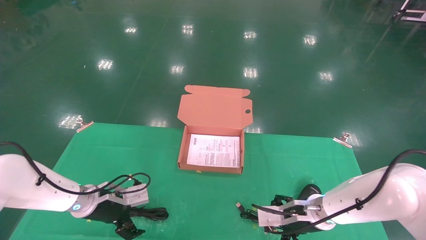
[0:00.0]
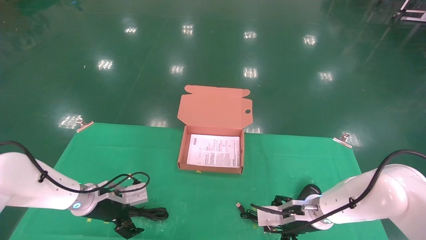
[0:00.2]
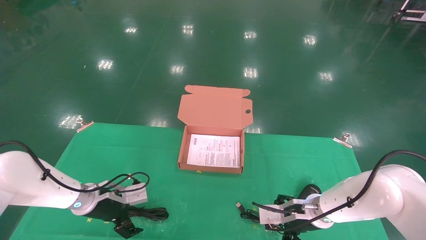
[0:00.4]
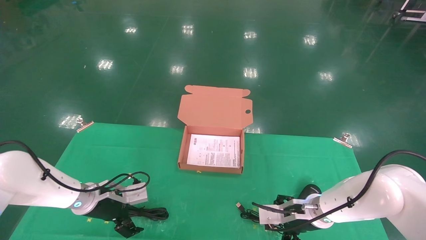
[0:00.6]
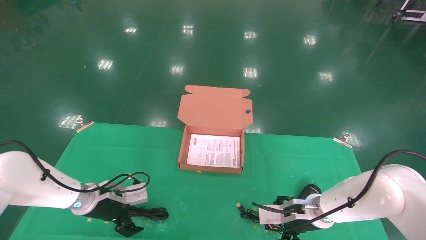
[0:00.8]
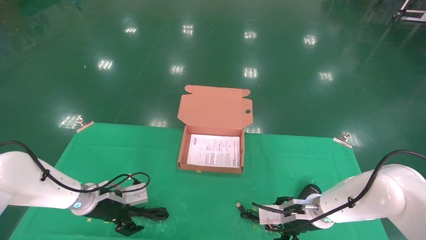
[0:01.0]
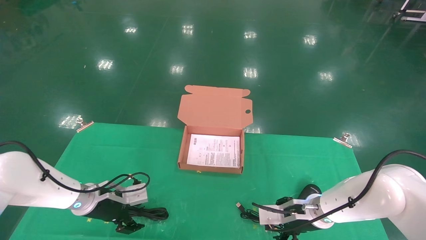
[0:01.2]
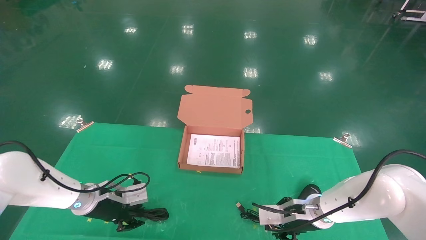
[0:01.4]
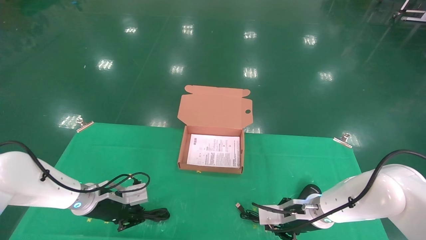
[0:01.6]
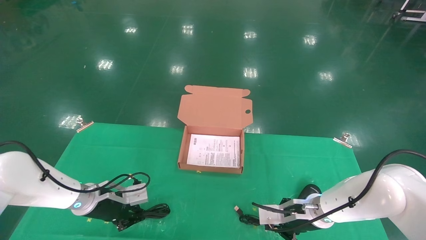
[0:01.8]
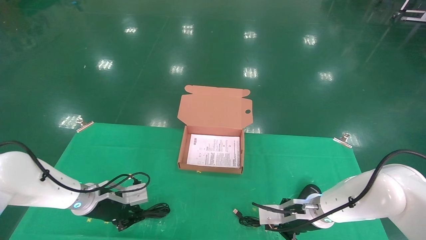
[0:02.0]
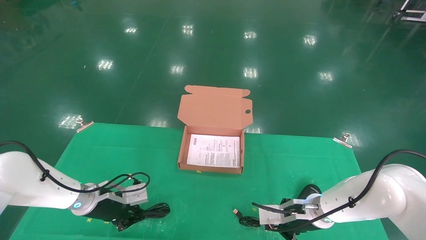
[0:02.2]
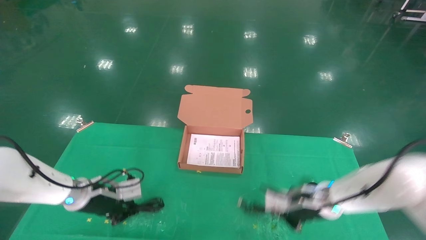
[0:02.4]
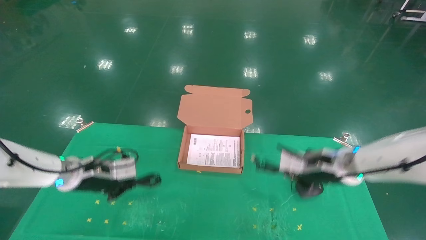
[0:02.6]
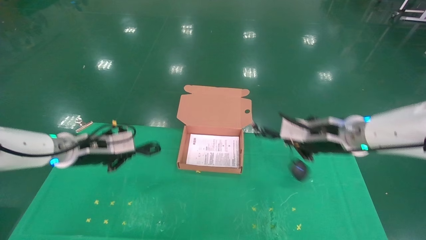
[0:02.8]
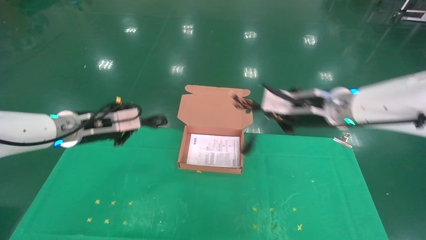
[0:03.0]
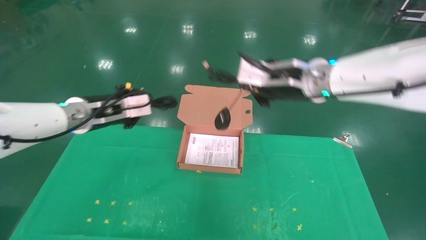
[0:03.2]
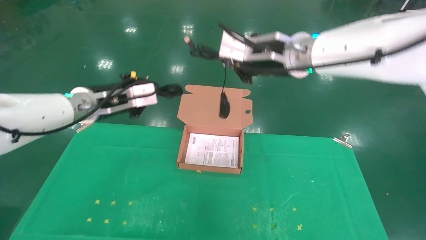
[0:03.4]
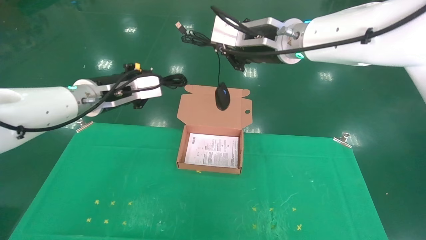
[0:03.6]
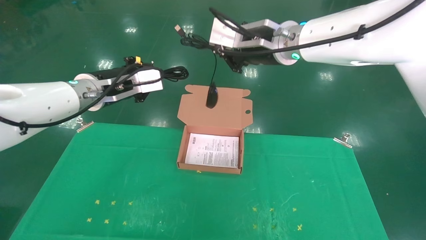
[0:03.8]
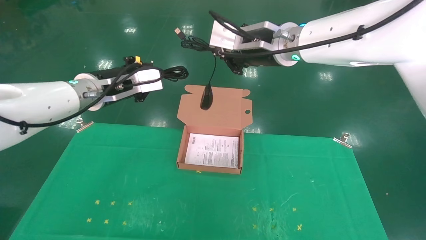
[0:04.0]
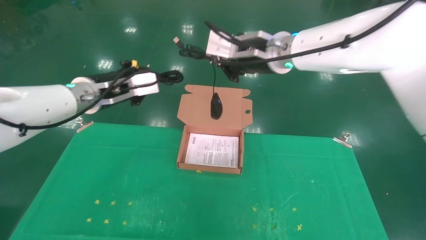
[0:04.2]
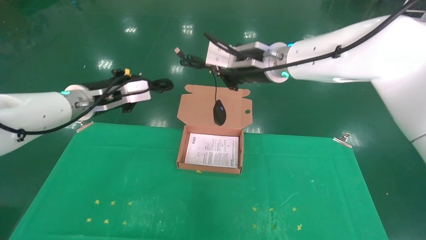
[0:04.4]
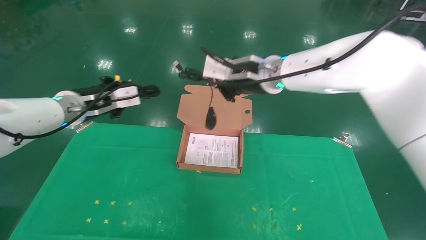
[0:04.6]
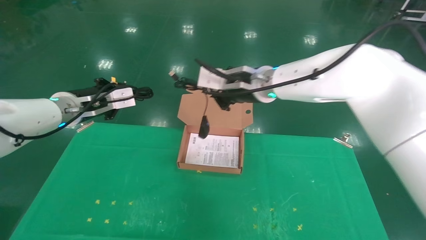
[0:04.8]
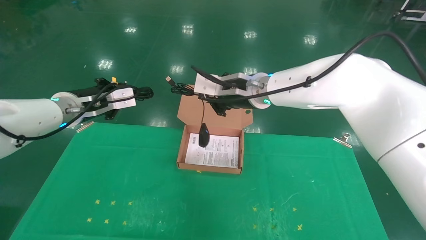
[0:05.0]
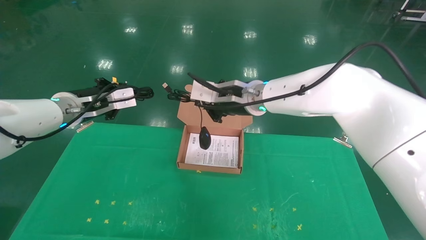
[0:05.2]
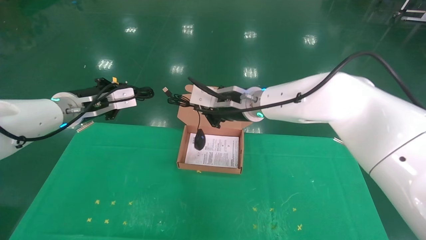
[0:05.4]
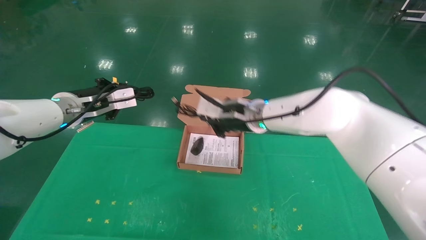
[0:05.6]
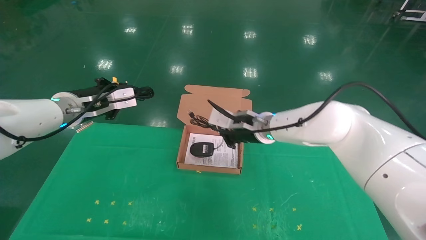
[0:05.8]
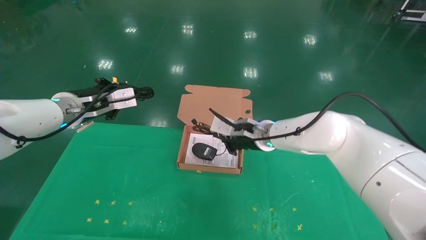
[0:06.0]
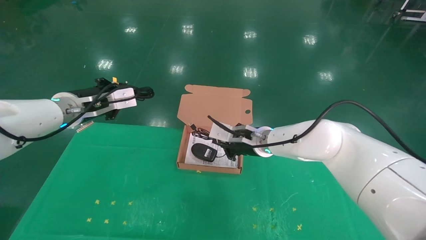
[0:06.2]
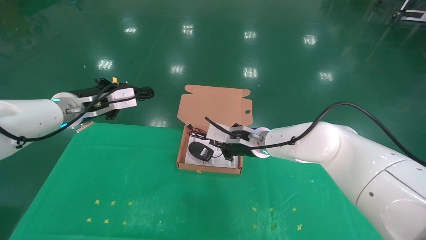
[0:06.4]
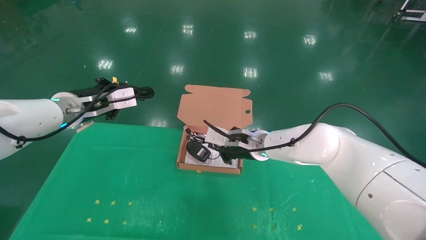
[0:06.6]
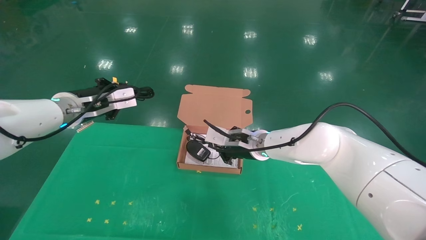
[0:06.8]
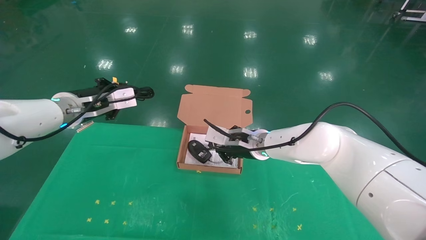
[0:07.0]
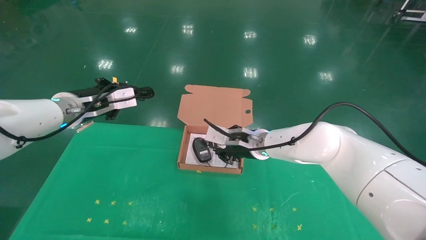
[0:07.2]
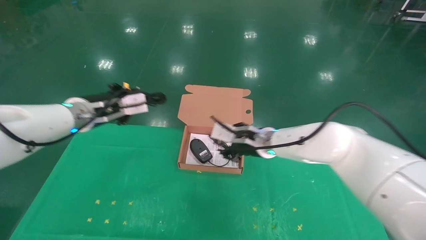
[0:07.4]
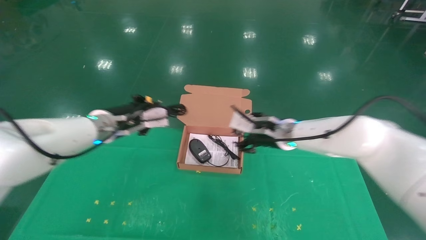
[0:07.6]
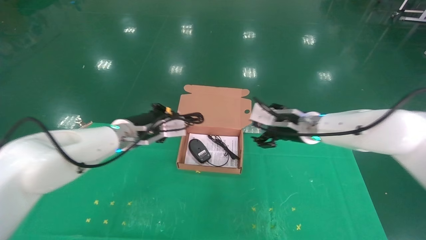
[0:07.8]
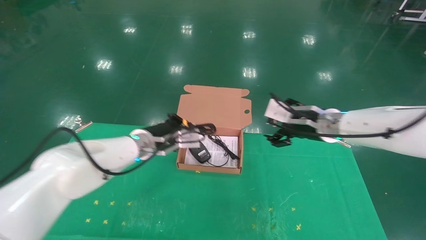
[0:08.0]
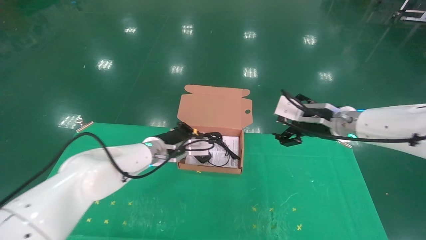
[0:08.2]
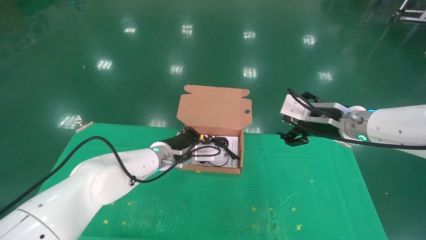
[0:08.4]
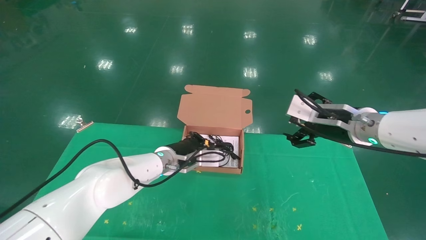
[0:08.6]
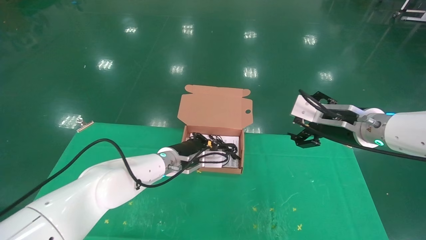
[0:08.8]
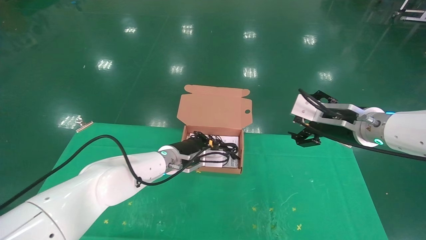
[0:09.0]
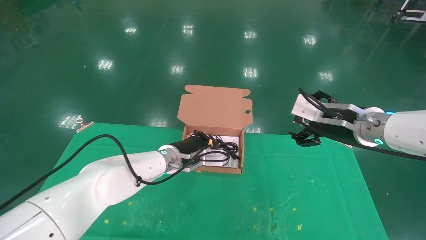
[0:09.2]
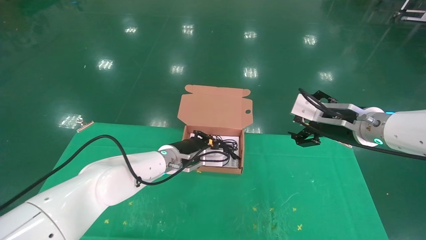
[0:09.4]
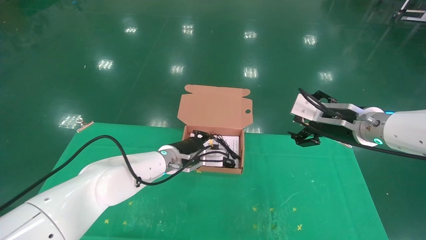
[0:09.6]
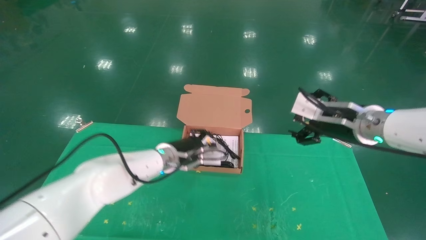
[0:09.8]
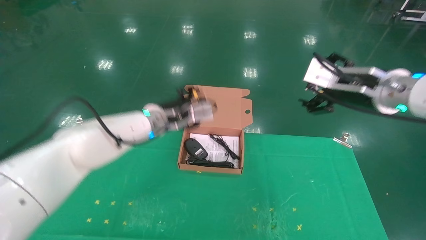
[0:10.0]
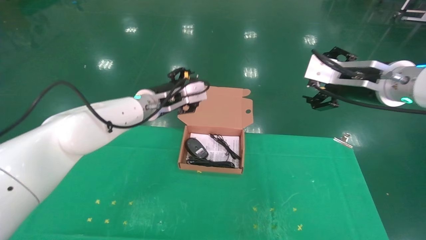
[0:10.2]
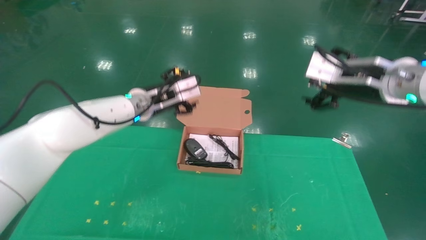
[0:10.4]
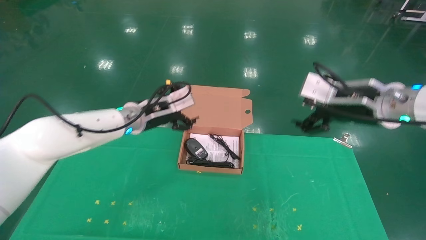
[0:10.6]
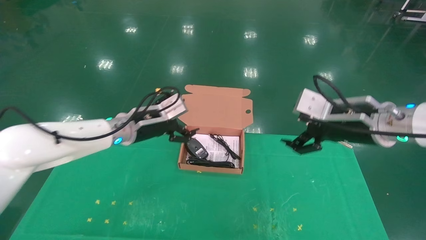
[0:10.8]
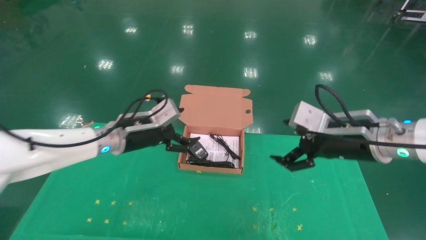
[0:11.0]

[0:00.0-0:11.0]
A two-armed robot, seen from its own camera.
Task of the whole recording: grasp data cable left put into box grasp mouse right put into box.
Step, 0:00.0 to 0:03.0: Grab and pick up both the mouse and power cord from the accessory packaging area at the same time.
Step, 0:03.2 to 0:09.6: Place the mouse and power cord into the box.
0:00.0 to 0:01.6: The left gripper closes its fingers, while the right gripper closes its fingers.
0:01.6 to 0:03.2: Both grippers move upward, approximately 25 cm.
0:03.2 to 0:04.8: The right gripper moves to the left, approximately 5 cm.
0:04.8 to 0:06.2: The right gripper travels downward by approximately 15 cm.
0:06.2 to 0:07.8: The left gripper shifts roughly 10 cm to the right and downward. Meanwhile the right gripper moves to the right, approximately 10 cm, and opens.
0:07.8 to 0:09.4: The left gripper is displaced to the right and downward by some 15 cm, while the right gripper heads backward and to the right, covering approximately 10 cm, and opens up.
0:09.4 to 0:11.0: The left gripper travels to the left and upward by about 15 cm, and opens up.

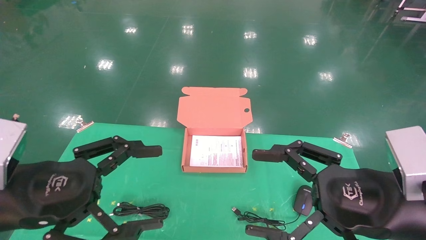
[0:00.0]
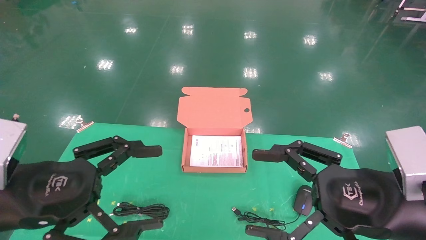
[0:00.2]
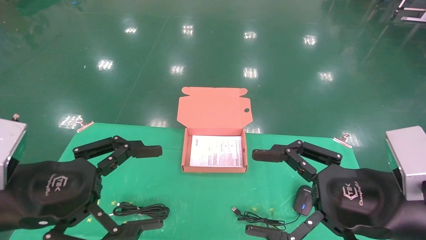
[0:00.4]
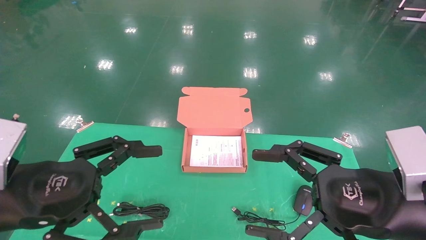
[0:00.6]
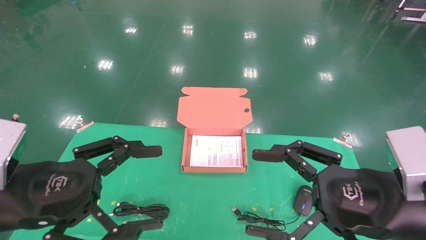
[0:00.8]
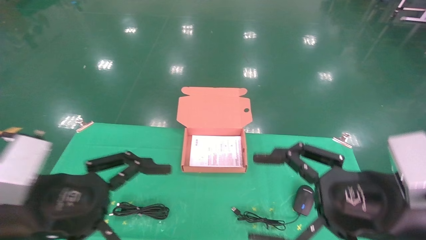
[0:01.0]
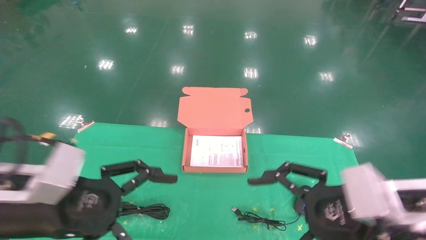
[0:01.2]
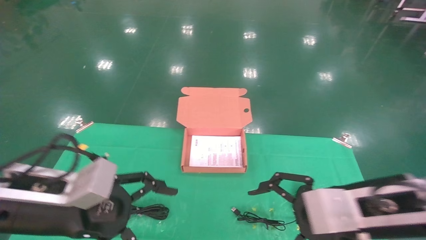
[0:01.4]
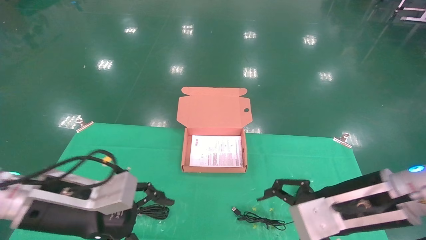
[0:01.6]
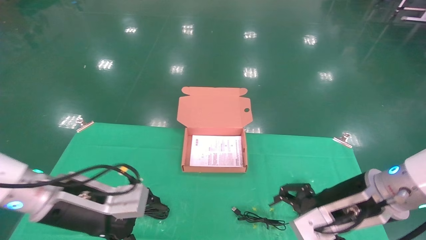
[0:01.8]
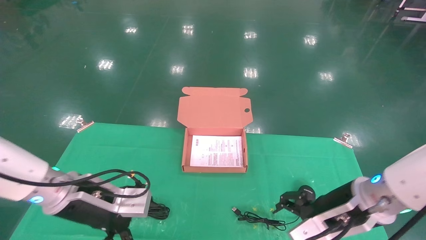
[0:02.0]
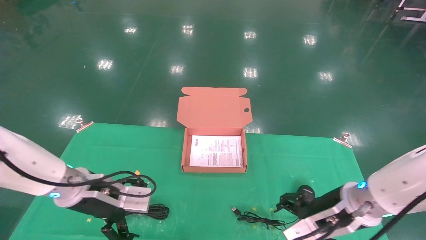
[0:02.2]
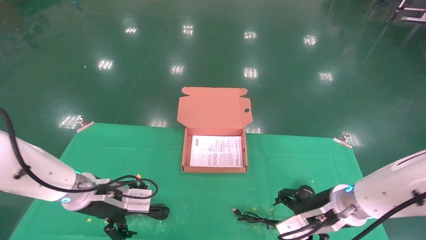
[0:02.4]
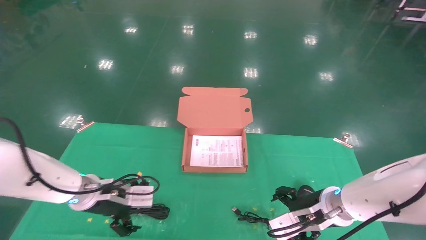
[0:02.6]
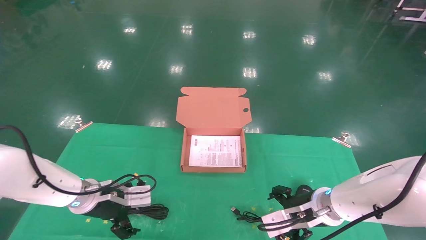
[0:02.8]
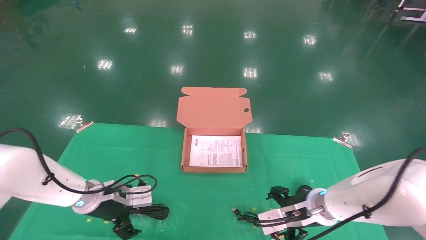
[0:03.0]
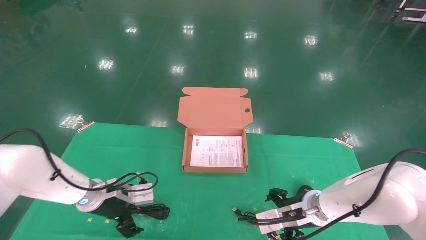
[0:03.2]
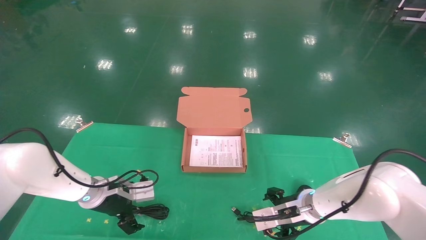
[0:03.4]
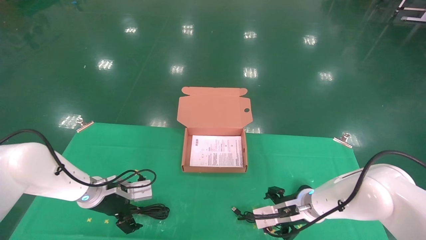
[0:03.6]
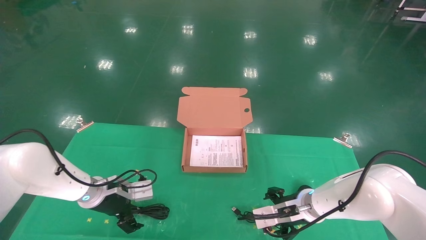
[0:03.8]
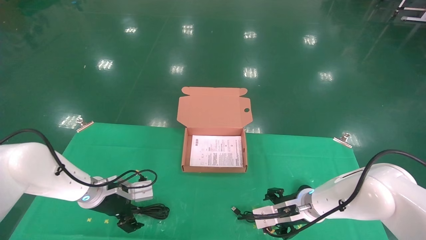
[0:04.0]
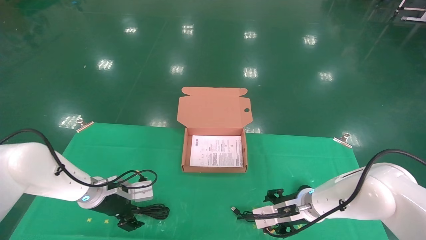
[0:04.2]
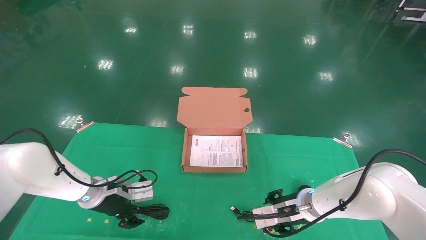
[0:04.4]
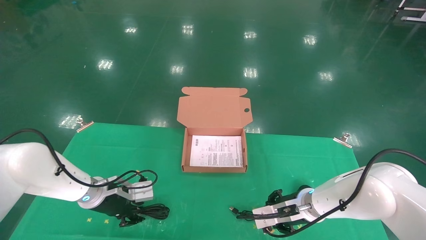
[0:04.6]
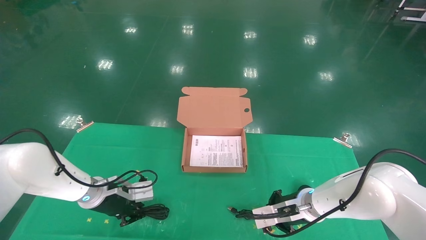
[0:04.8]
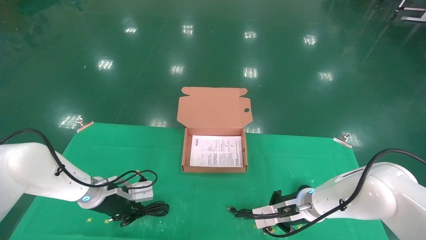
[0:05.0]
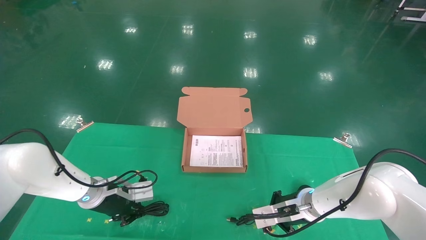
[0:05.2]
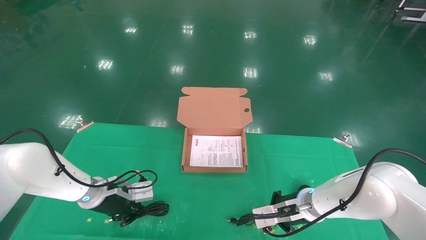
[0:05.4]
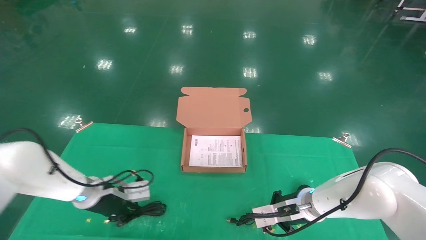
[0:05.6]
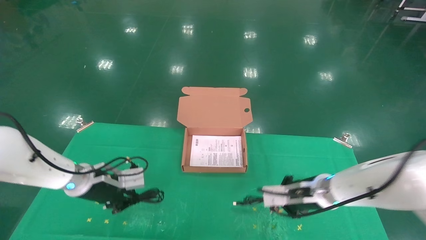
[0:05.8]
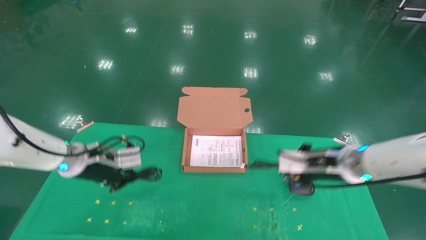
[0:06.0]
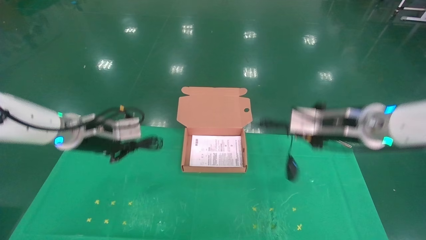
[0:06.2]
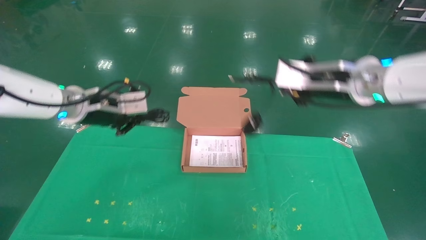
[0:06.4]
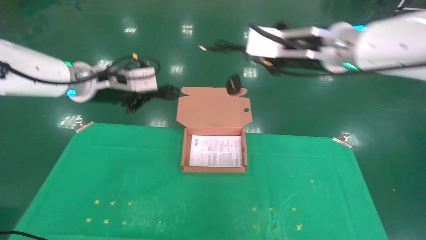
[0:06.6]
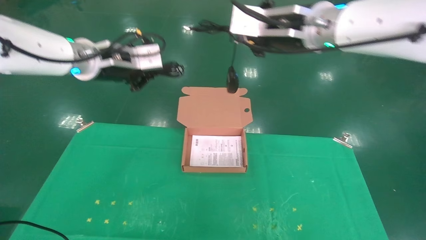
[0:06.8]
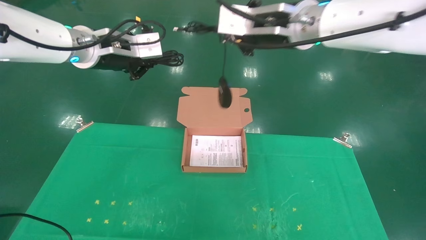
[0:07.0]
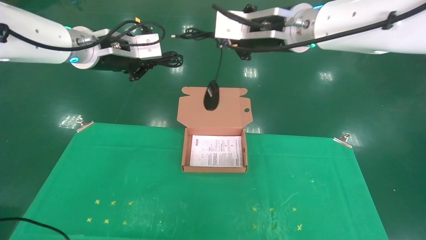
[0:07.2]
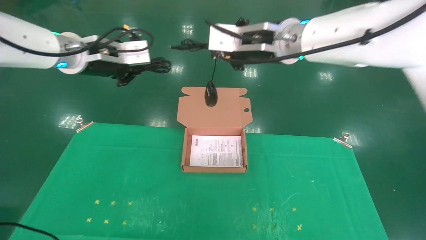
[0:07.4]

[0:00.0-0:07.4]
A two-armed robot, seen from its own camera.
Task of the whole recording: grasp data cable left put into box grasp mouse right put into box.
Step, 0:01.2 to 0:05.2: Grab and pick up both the mouse and power cord from the accessory packaging area at the same time.
0:00.0 to 0:01.4: The left gripper shifts by some 5 cm.
0:01.4 to 0:03.0: The grippers both shift forward and downward by roughly 20 cm.
0:03.0 to 0:04.4: The left gripper closes up.
0:04.4 to 0:06.0: Both grippers move upward, about 10 cm. The right gripper closes its fingers. Meanwhile the left gripper closes its fingers.
0:06.0 to 0:07.4: The left gripper heads upward, covering roughly 25 cm. The right gripper heads upward and to the left, covering about 30 cm.
